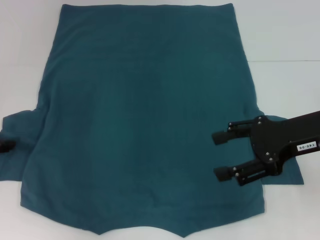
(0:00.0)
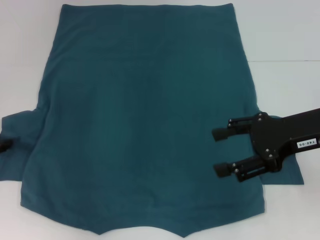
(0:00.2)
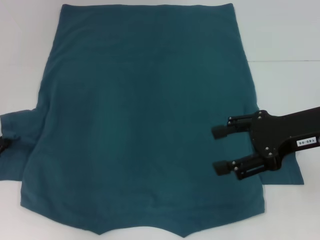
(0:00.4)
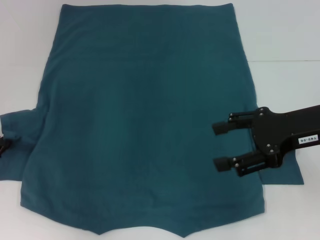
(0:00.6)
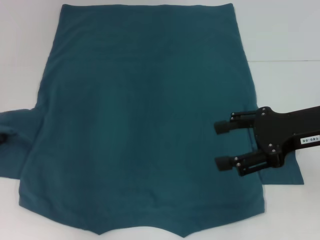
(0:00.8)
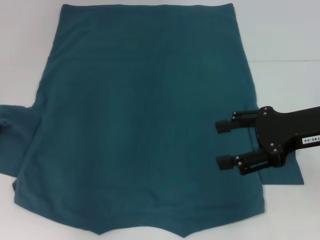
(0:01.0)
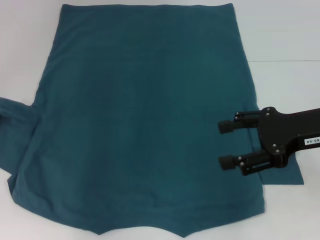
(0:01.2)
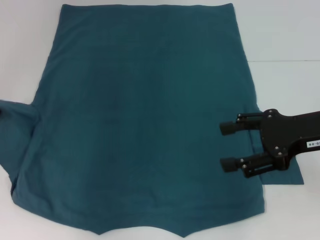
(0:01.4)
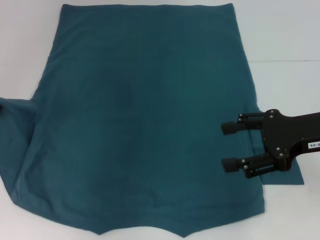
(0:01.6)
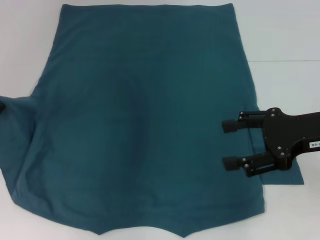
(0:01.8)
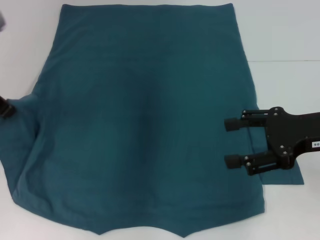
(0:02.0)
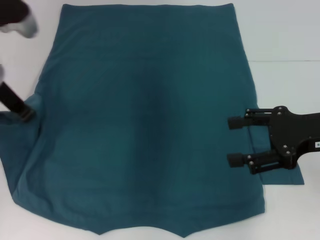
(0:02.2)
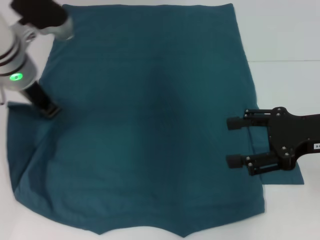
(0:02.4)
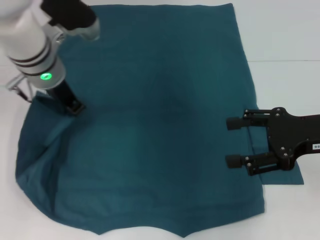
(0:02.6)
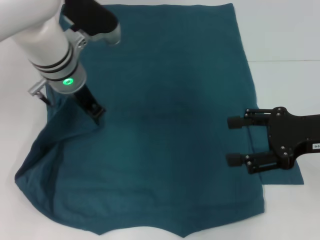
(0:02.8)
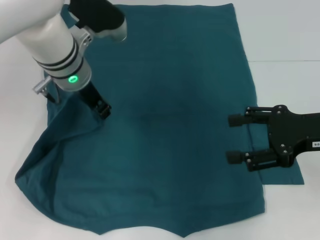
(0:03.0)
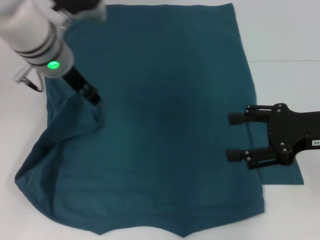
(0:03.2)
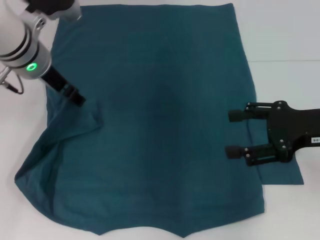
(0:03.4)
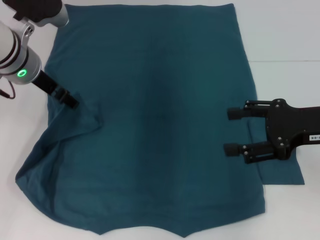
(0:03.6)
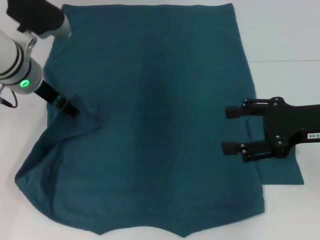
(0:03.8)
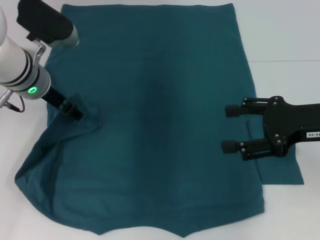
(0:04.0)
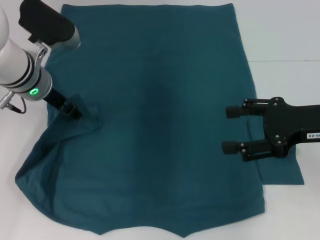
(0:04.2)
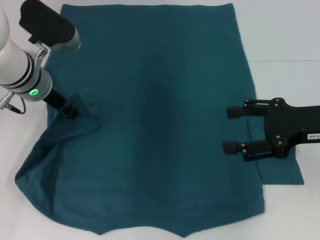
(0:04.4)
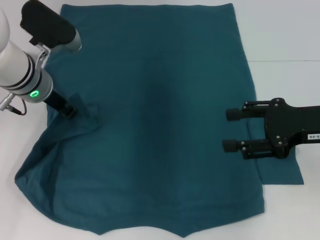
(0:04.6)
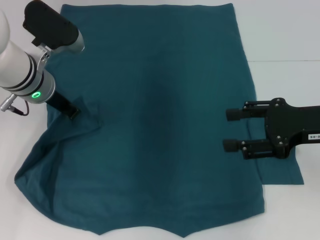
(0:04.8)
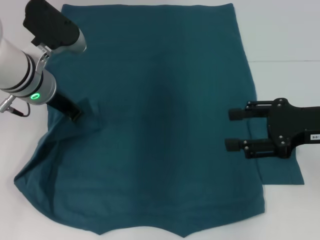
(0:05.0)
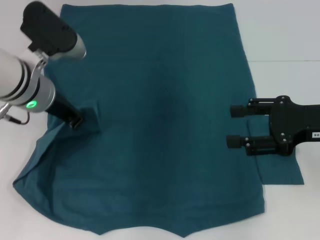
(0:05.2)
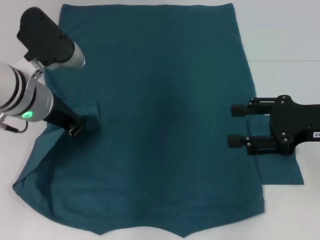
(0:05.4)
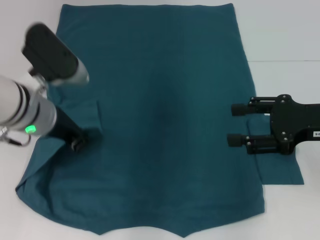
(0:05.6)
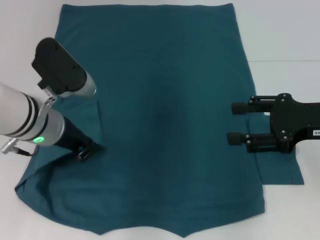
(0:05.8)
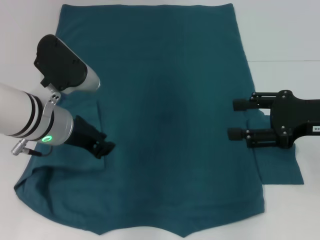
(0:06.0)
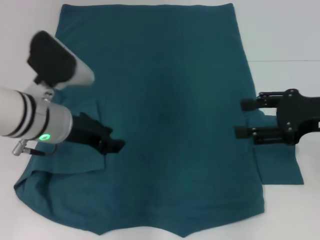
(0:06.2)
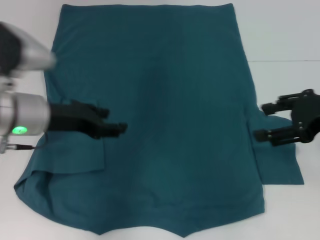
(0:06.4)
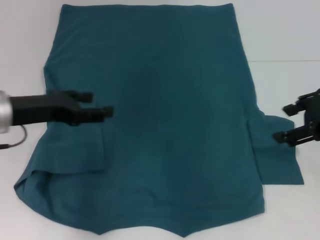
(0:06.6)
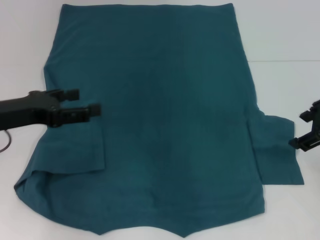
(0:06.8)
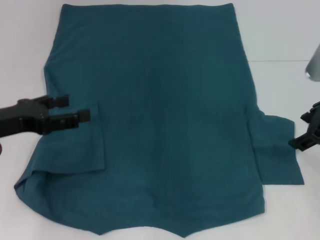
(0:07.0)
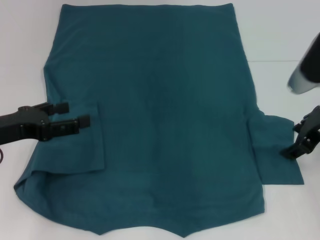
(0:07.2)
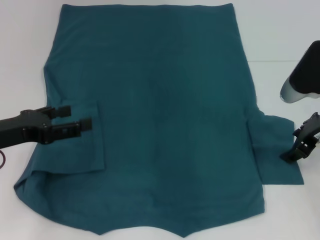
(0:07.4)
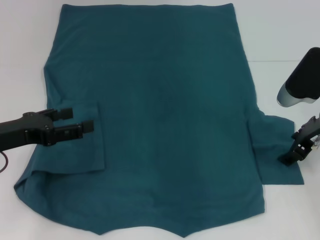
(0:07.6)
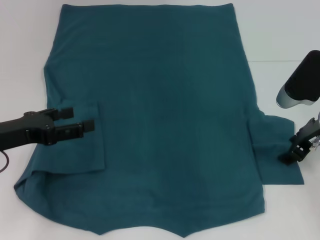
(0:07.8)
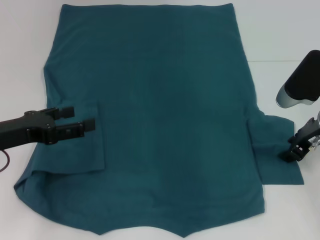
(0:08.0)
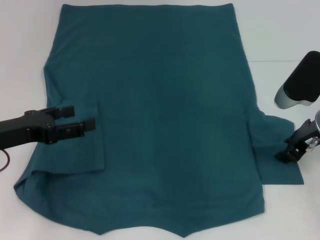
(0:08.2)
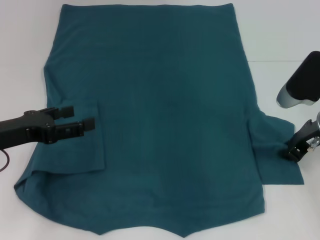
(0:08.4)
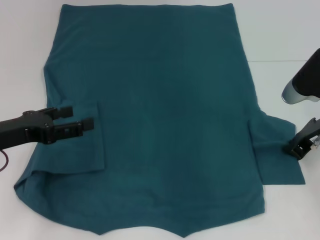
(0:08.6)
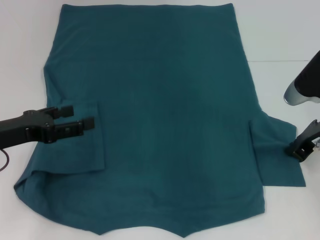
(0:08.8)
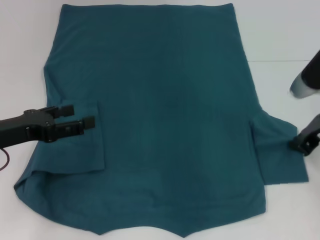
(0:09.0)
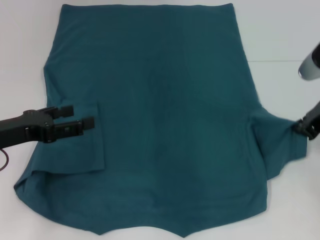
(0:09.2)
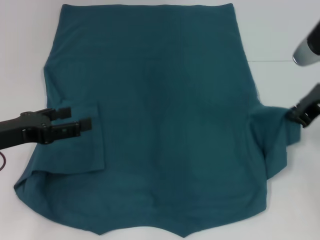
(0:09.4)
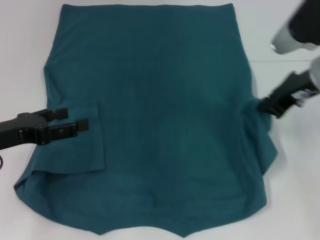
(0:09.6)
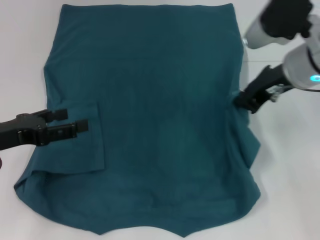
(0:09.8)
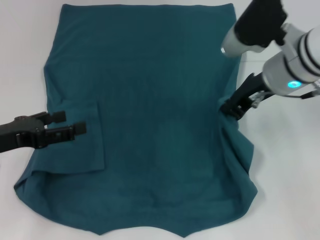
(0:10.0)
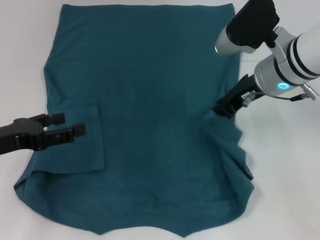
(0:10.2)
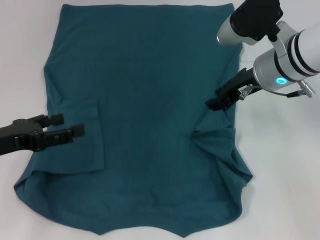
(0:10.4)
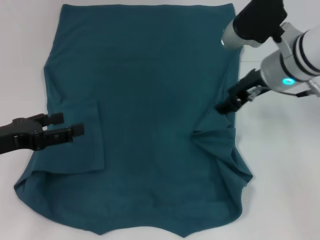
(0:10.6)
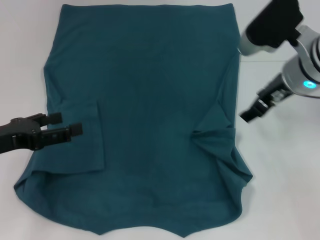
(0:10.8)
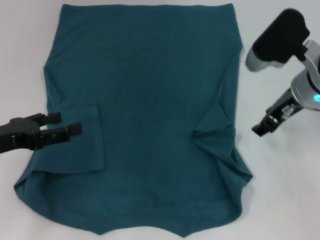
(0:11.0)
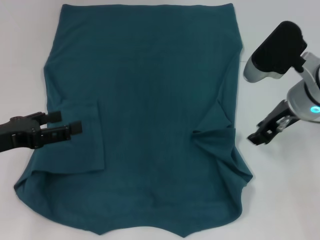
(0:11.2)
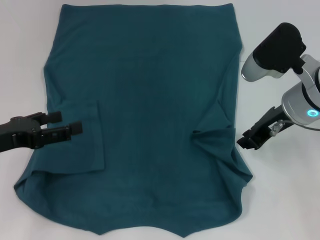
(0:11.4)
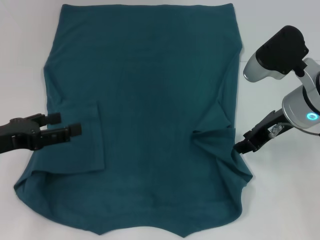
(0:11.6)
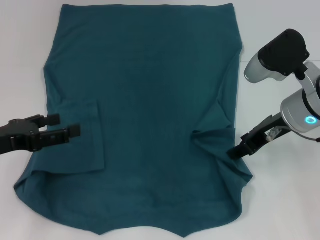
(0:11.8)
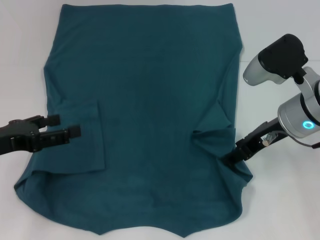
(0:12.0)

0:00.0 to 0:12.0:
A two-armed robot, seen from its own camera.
Step, 0:00.0 to 0:06.0: Fold the bottom left sleeve with your left hand.
0:00.0 to 0:01.6: The left gripper goes roughly 10 cm upward, and closes its fingers.
0:01.6 to 0:03.0: The left gripper heads to the right, covering roughly 20 cm.
0:03.0 to 0:04.4: The left gripper is displaced to the left by some 5 cm, and opens up.
0:04.4 to 0:06.0: The left gripper goes approximately 10 cm backward, and closes.
0:06.0 to 0:07.6: The right gripper travels forward by about 5 cm; the left gripper heads to the left and backward, covering about 15 cm, and opens its fingers.
0:07.6 to 0:09.0: The right gripper closes.
0:09.0 to 0:10.4: The right gripper moves to the left, roughly 10 cm.
0:10.4 to 0:12.0: The right gripper ends up approximately 5 cm from where it was, and opens up.

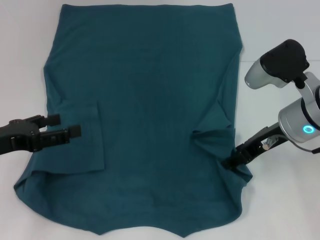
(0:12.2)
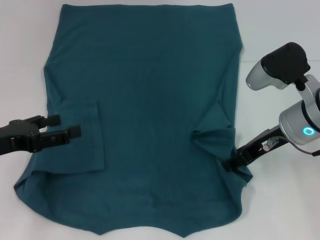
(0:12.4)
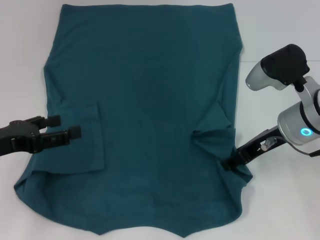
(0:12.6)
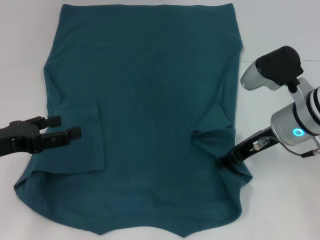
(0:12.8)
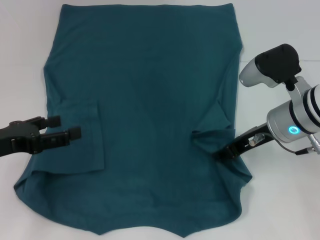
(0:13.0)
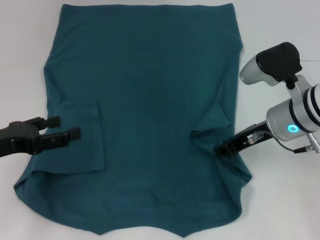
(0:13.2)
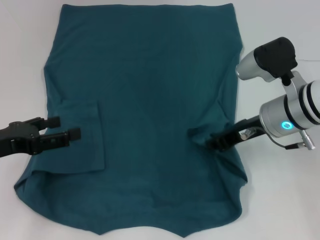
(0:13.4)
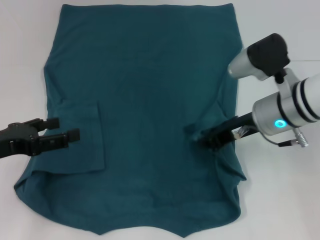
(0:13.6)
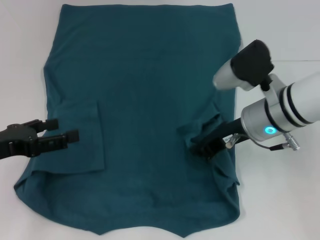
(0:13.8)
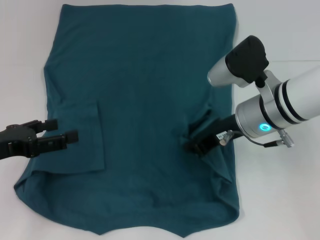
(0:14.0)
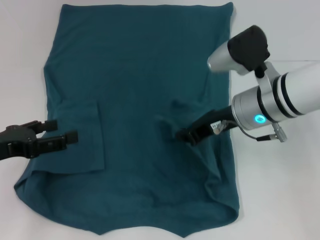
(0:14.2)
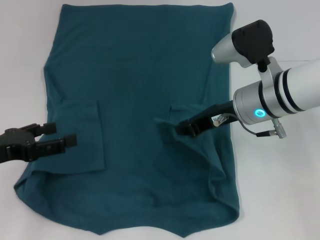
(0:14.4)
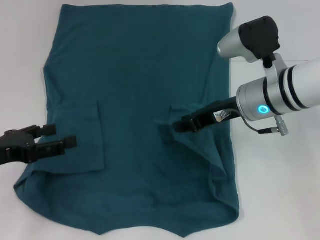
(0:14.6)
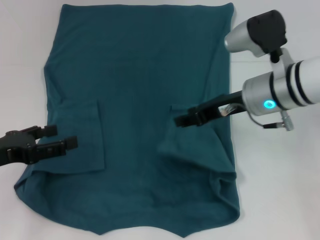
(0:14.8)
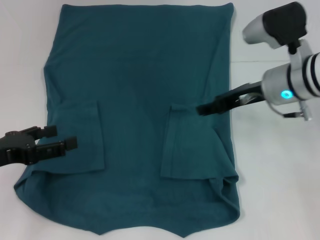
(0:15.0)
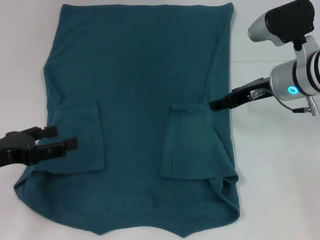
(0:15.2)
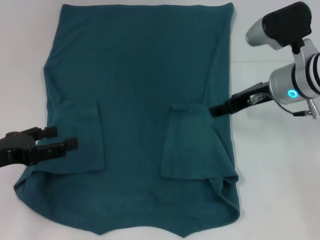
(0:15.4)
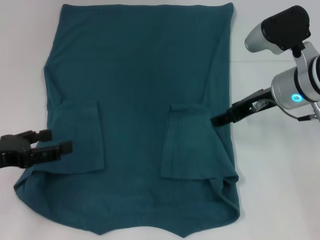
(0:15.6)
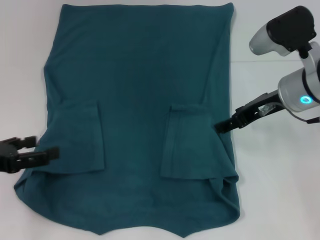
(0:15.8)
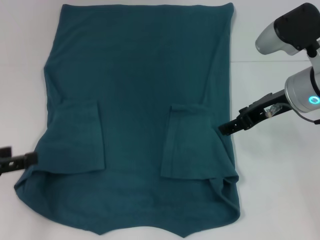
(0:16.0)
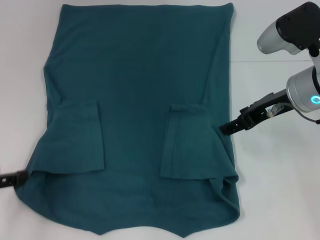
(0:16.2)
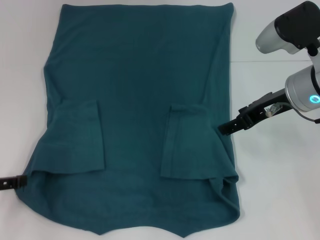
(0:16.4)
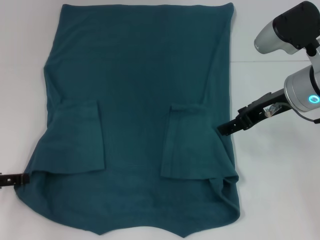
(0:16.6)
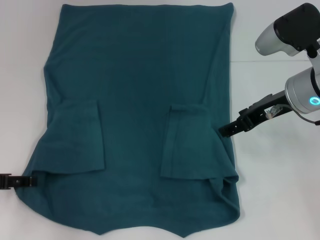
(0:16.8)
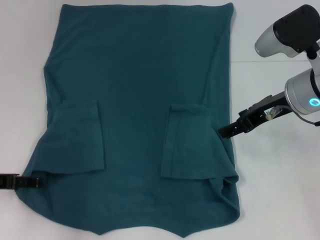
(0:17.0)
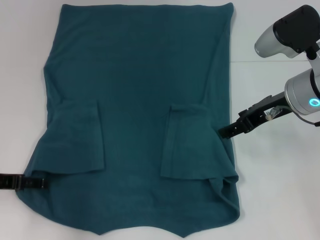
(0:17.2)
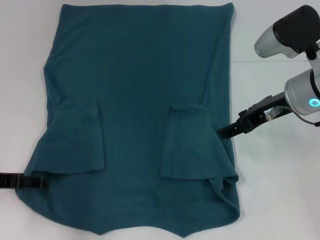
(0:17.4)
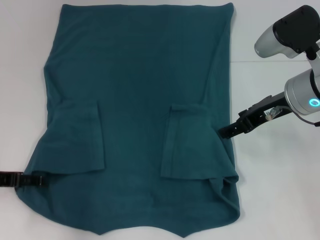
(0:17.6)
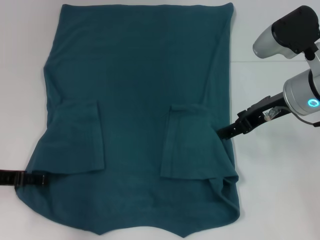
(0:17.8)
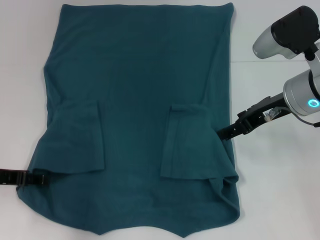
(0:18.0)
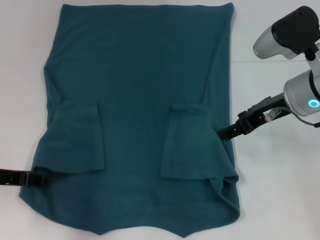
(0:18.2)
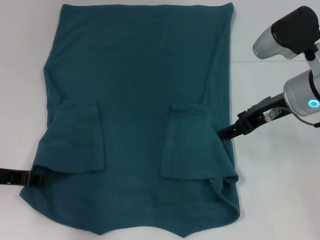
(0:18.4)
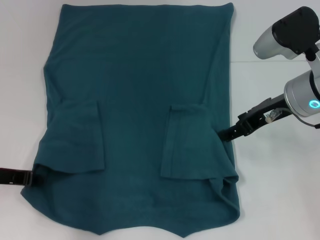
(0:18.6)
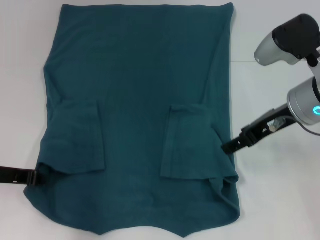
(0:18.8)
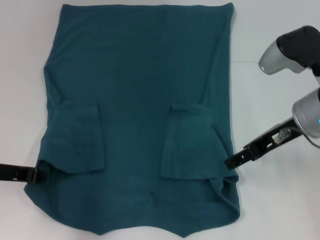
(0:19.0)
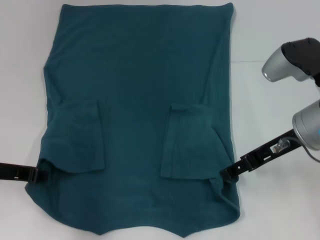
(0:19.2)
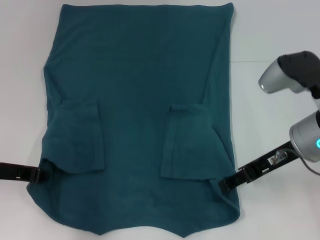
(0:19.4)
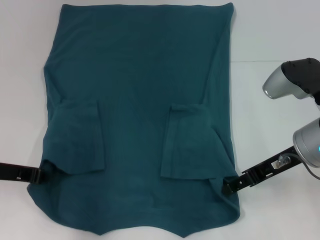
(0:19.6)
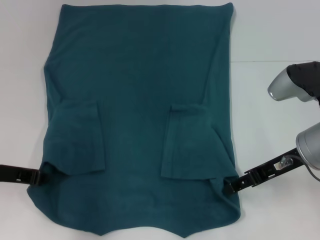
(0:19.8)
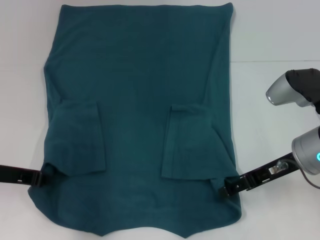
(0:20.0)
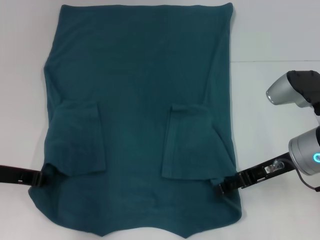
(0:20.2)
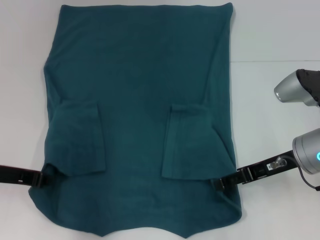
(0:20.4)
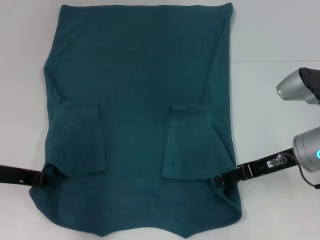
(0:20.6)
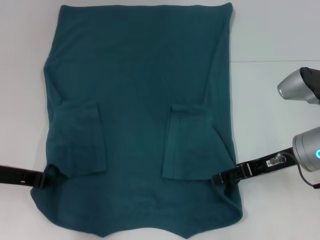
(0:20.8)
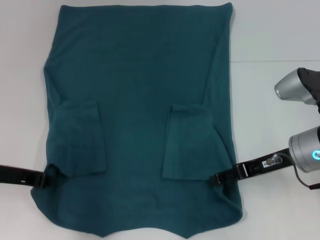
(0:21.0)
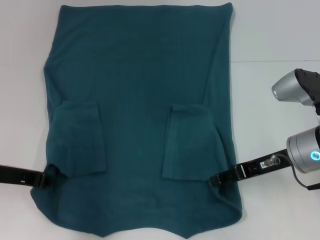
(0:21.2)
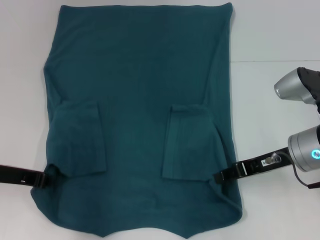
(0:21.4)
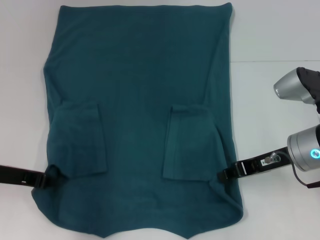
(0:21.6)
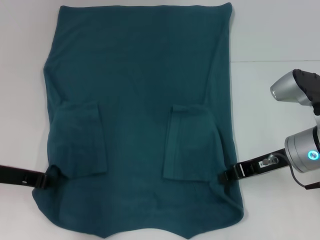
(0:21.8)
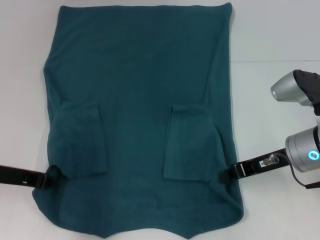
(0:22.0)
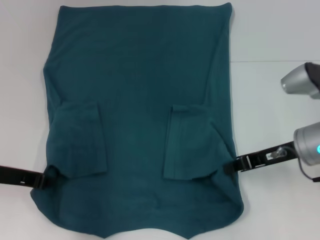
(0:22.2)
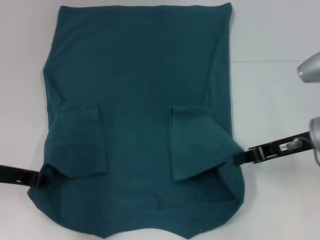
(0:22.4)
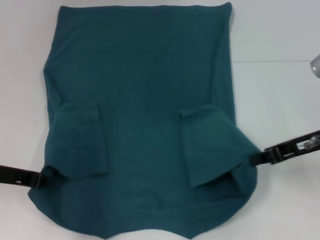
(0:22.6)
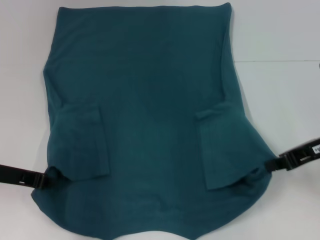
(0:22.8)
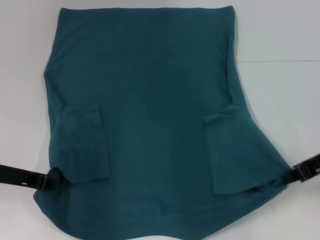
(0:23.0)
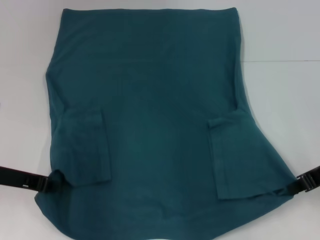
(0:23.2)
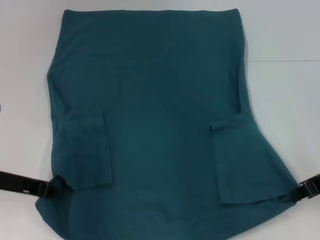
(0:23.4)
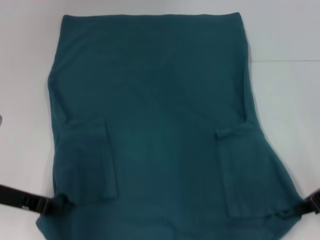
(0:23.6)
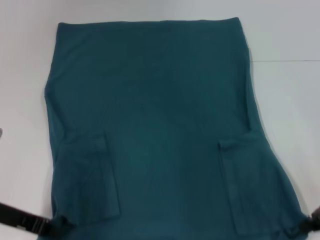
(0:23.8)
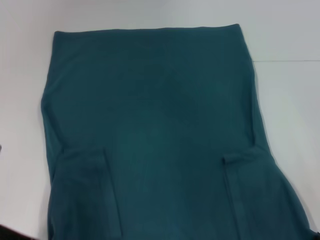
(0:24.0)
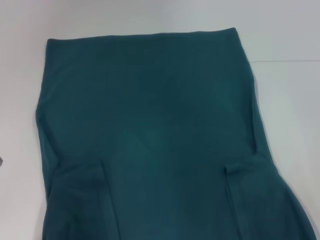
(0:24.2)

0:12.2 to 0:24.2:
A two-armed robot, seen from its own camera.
Step, 0:12.2 to 0:14.8: Fold the bottom right sleeve to the right.
Step, 0:15.0 to 0:18.8: Grab the bottom left corner with your left hand.
Step, 0:19.0 to 0:21.8: Grab the bottom right corner with your right hand.
0:12.2 to 0:13.8: The right gripper closes its fingers.
0:13.8 to 0:15.2: The right gripper shifts by roughly 5 cm, and opens.
0:16.6 to 0:18.2: The left gripper shifts by roughly 5 cm.
0:18.2 to 0:19.8: The left gripper closes up, while the right gripper travels backward by some 5 cm.
0:19.8 to 0:21.2: The grippers stay close to where they were, moving slightly.
0:21.2 to 0:22.6: The right gripper changes place by some 5 cm, and closes its fingers.
0:22.6 to 0:24.2: The two grippers go about 5 cm backward.
